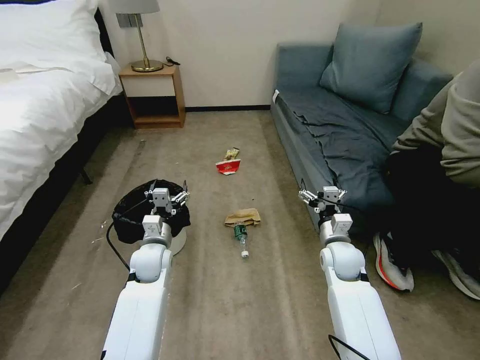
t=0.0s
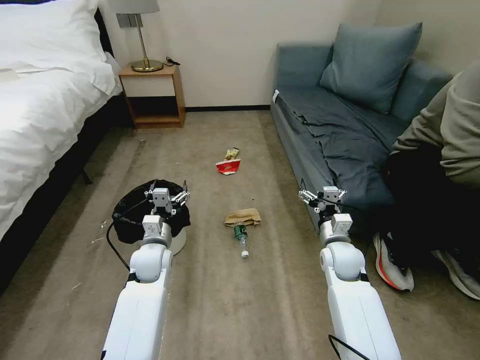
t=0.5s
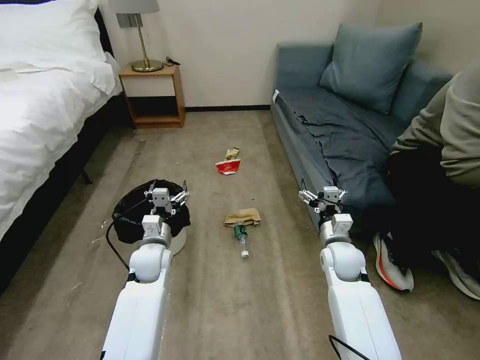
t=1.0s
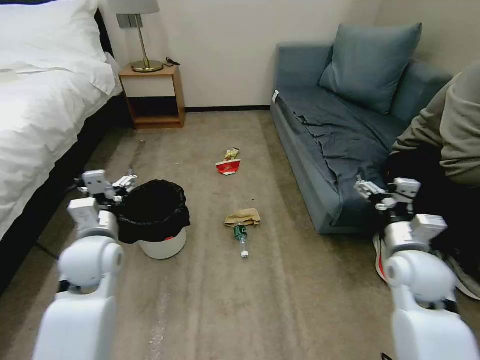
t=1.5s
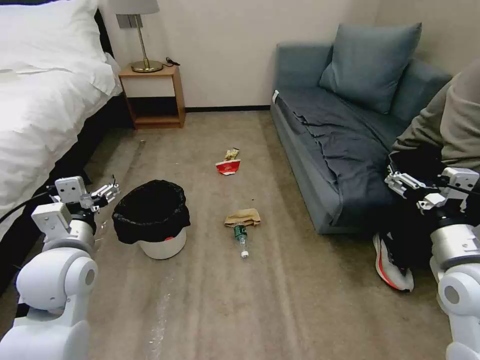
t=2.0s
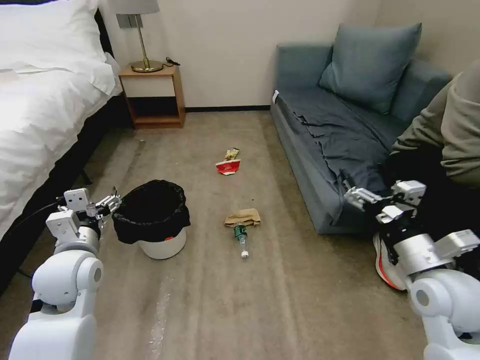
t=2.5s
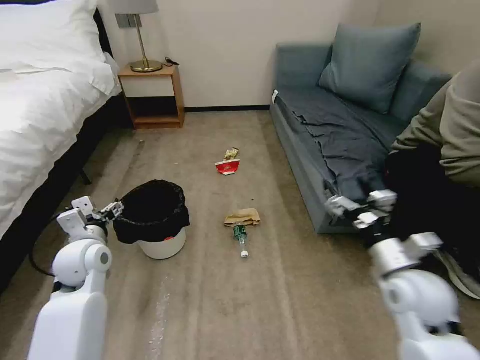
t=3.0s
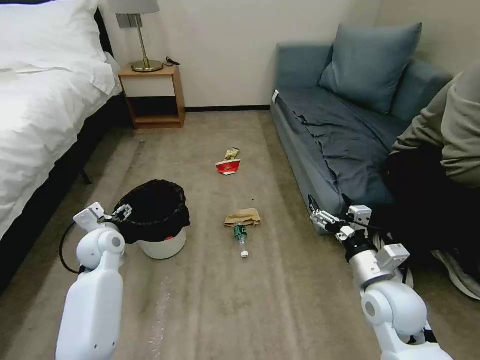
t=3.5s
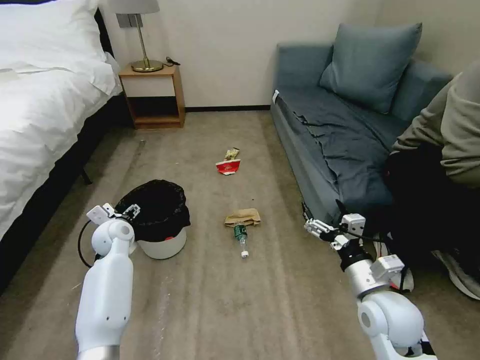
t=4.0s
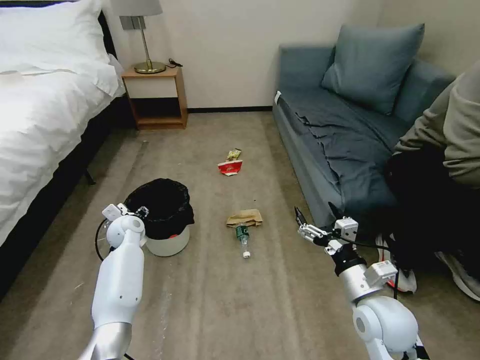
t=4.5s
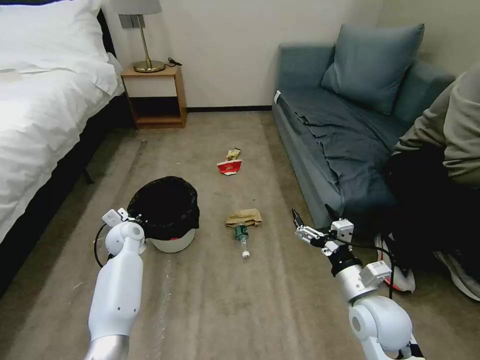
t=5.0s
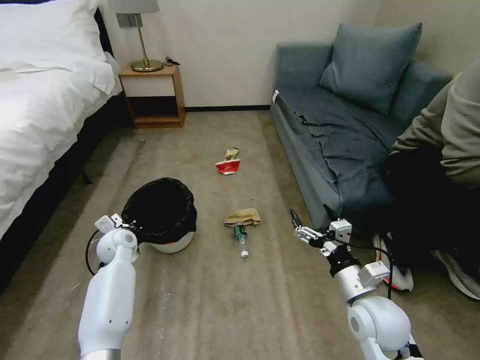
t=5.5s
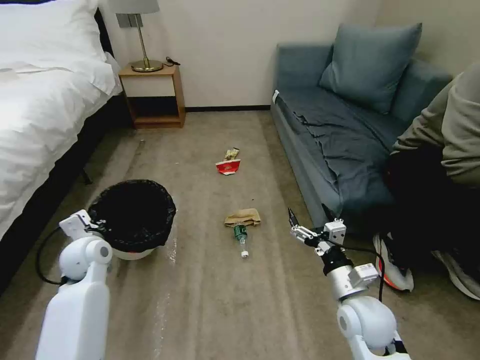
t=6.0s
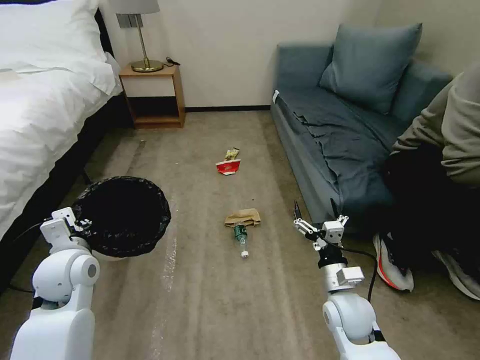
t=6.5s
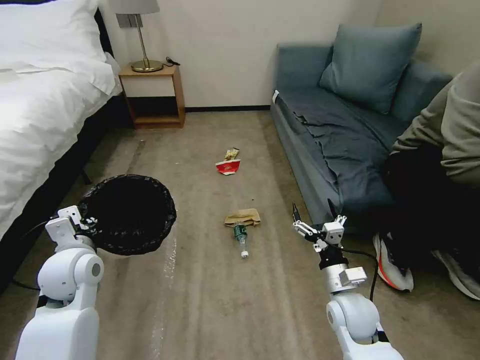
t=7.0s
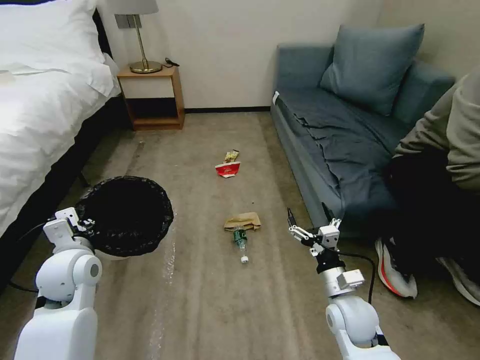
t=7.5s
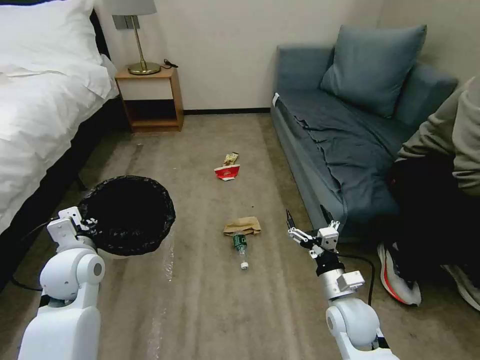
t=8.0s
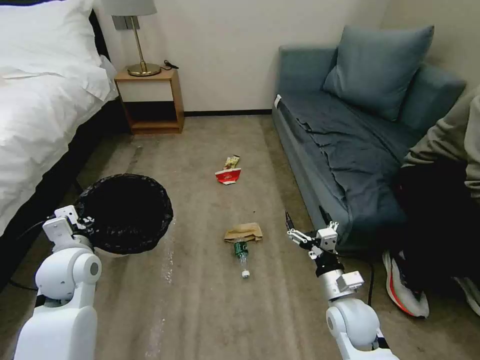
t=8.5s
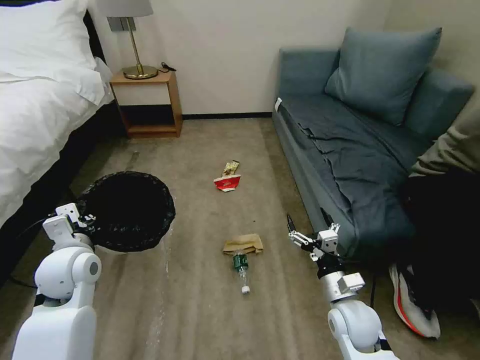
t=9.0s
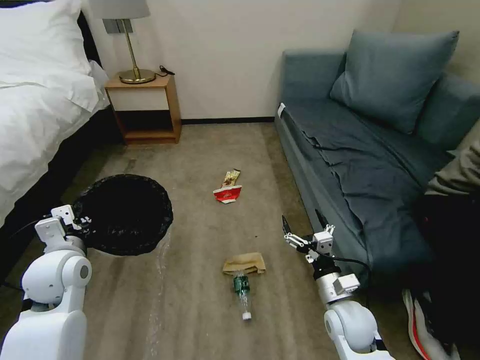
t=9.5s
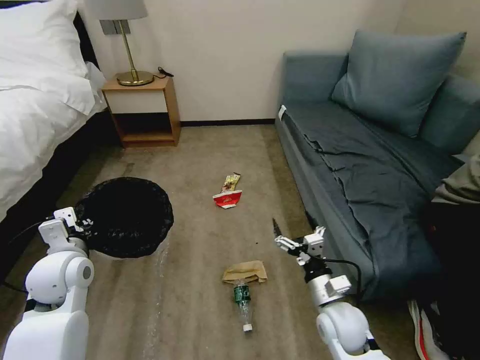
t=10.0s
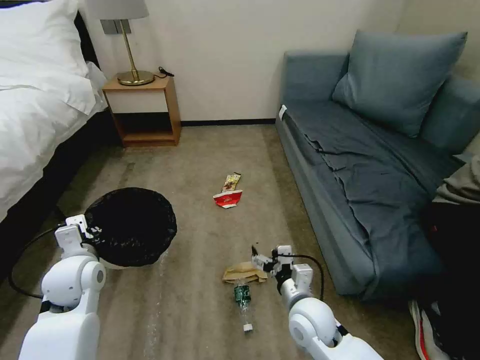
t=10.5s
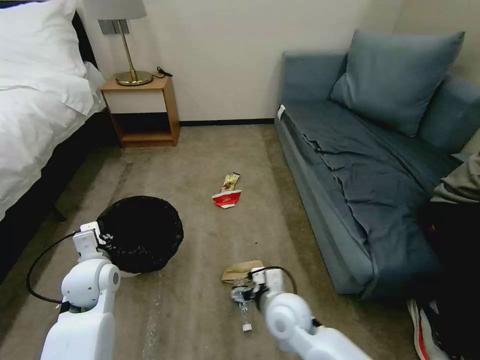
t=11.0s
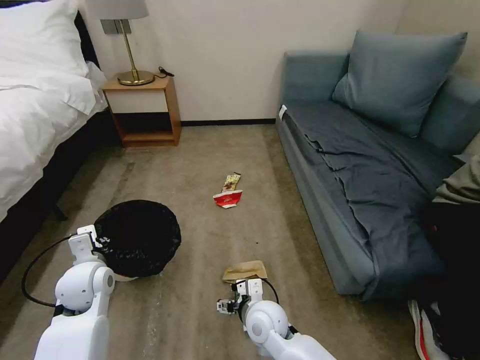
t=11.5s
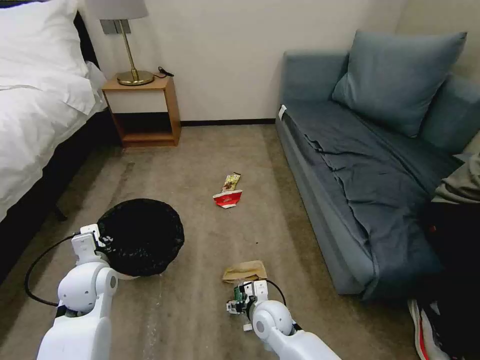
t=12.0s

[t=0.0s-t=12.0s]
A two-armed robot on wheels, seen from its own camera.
Task of the whole recording: Pick up the trash bin, then pick up the garbage on the floor and place it into the trash bin.
t=2.0s to t=4.0s: The left gripper heads forward and downward, covering roughly 20 cm; the right gripper moves downward and to the left, some 15 cm.
t=4.0s to t=6.0s: The right gripper moves about 5 cm. The left gripper goes some 5 cm backward, and closes.
t=6.0s to t=8.0s: The left gripper goes some 5 cm backward.
t=10.0s to t=12.0s: The left gripper moves downward, some 5 cm; the right gripper heads to the left and downward, covering roughly 15 cm.

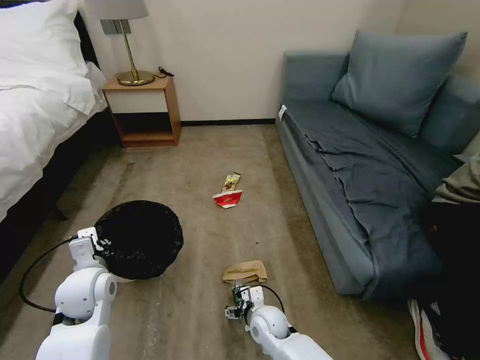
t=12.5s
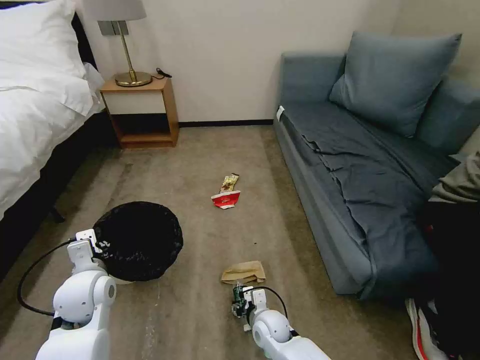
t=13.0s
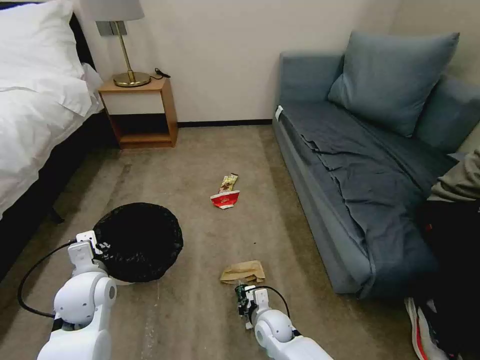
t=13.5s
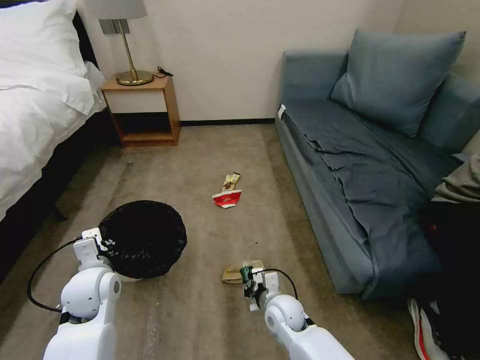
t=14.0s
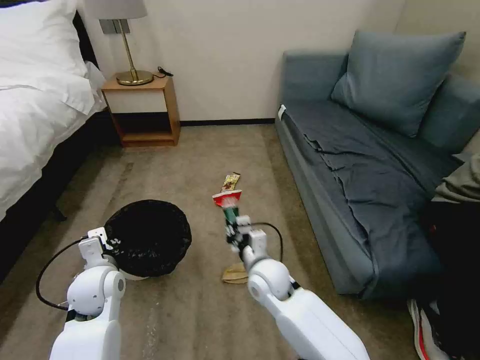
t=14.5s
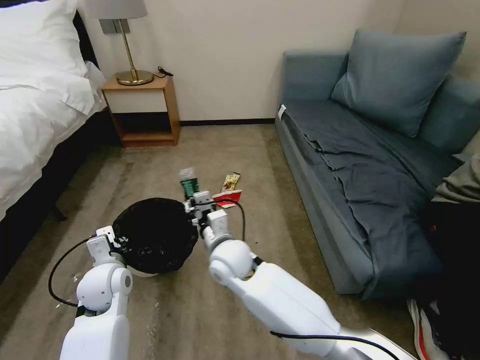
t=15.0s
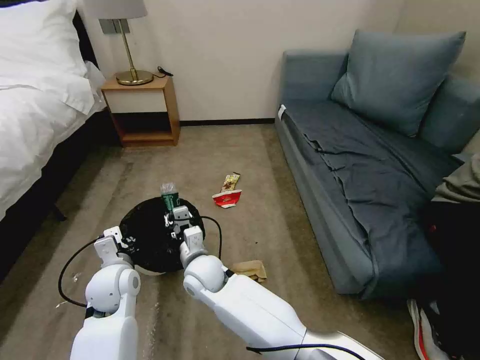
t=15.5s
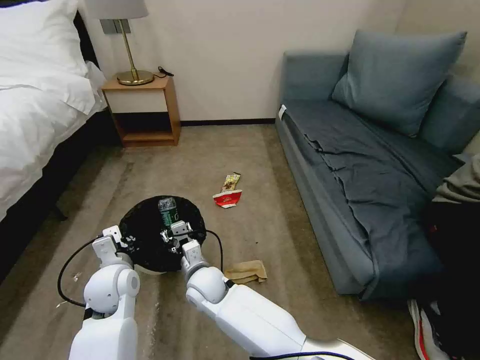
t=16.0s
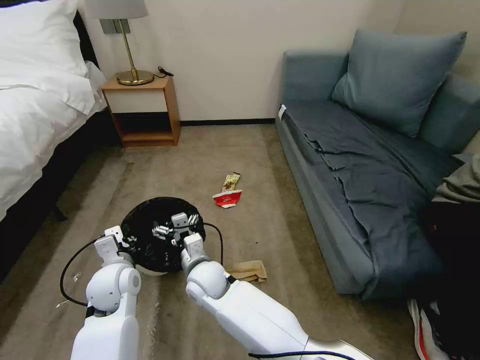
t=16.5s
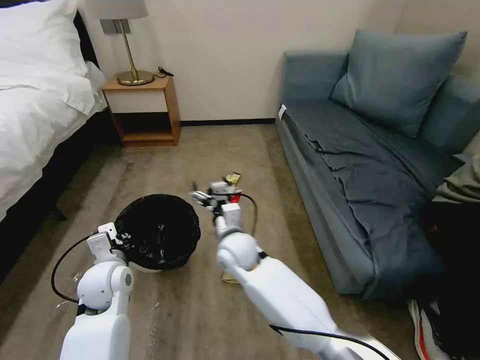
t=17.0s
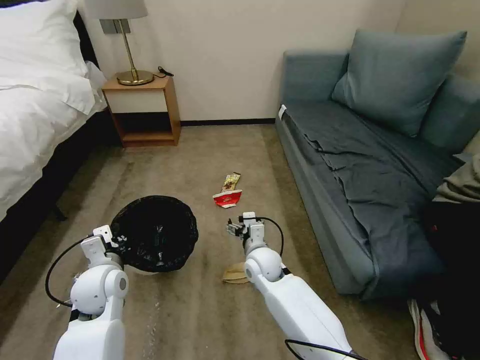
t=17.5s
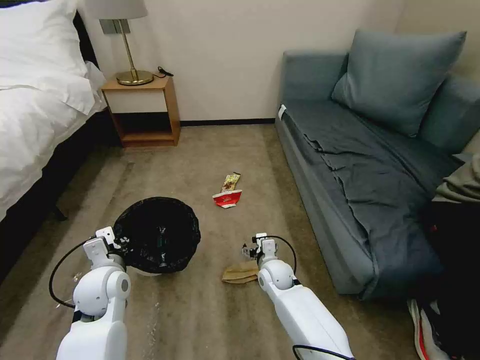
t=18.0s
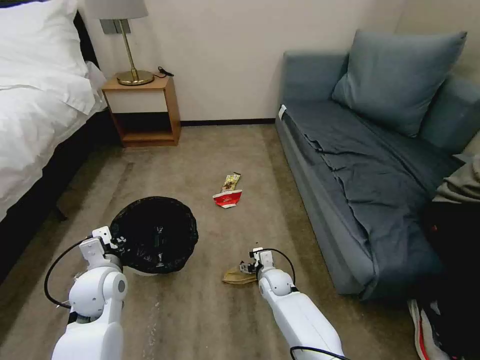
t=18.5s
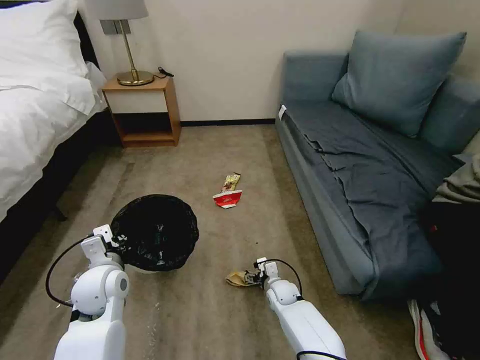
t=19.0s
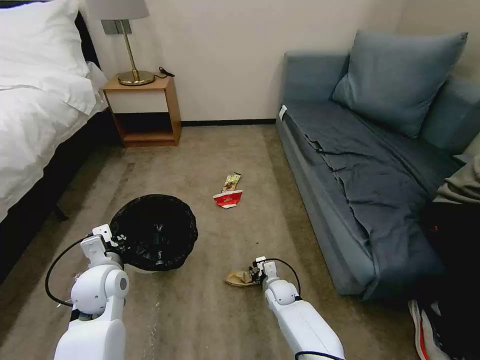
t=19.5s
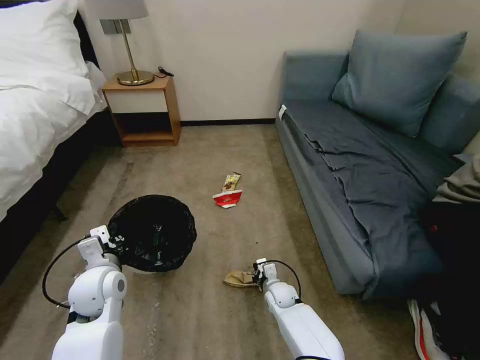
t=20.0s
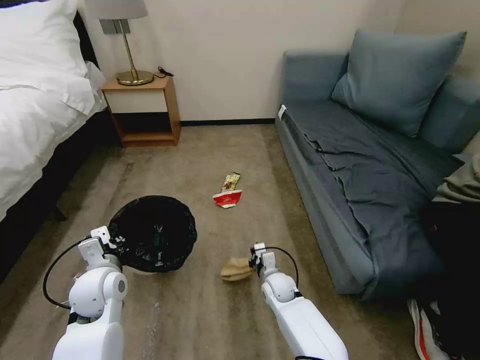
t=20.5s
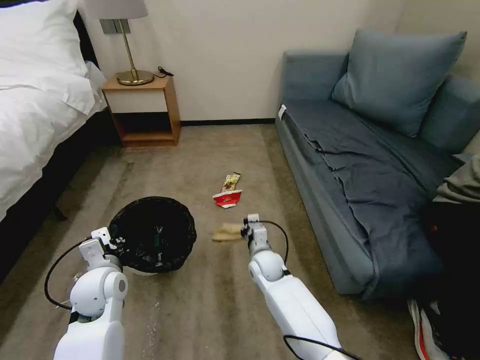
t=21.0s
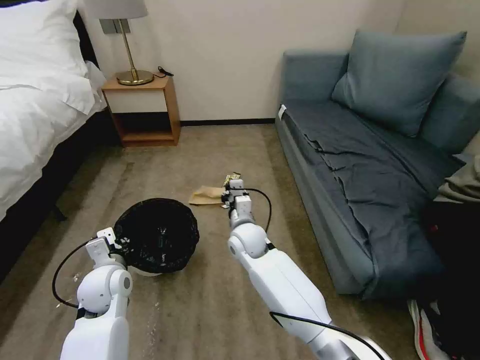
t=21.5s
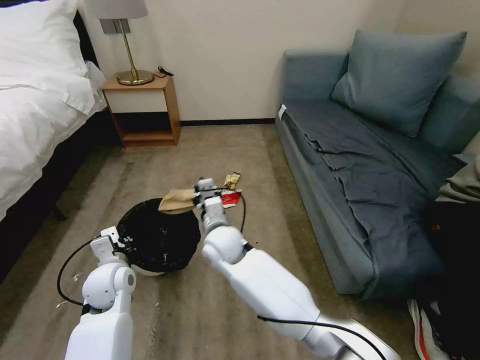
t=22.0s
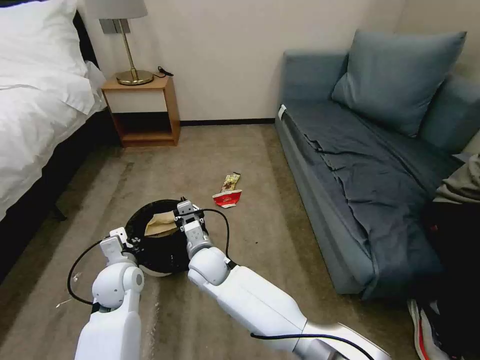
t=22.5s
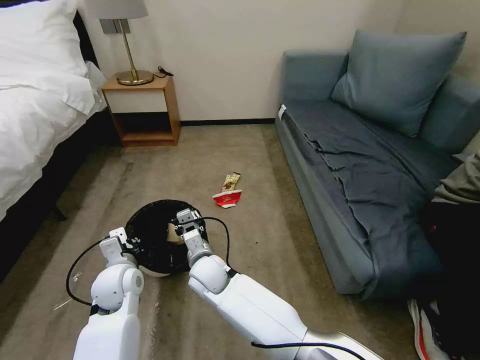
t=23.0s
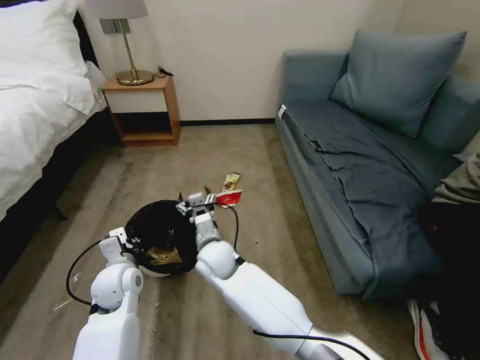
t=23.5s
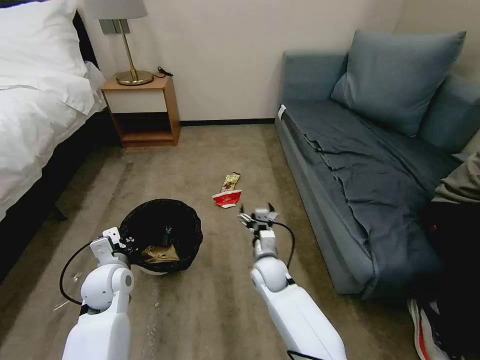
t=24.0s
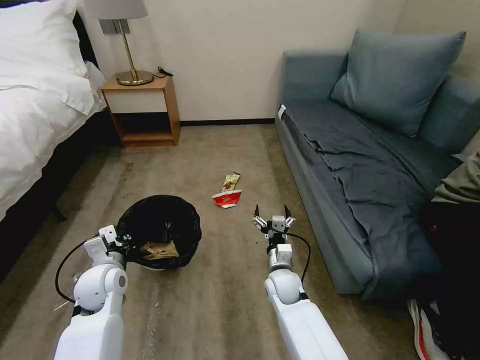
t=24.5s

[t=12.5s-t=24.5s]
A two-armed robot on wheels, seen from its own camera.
Task of the whole recording: Pick up the trash bin, then pick up the garbage on the floor and place it into the trash bin.
t=12.5s to t=14.5s: The right gripper goes roughly 15 cm upward, and closes.
t=14.5s to t=16.5s: The right gripper heads to the left, covering approximately 15 cm, and opens up.
t=16.5s to t=18.5s: The right gripper shifts about 25 cm to the right and downward.
t=18.5s to t=20.5s: The right gripper closes its fingers.
t=20.5s to t=22.5s: The right gripper moves to the left and upward, some 25 cm.
t=22.5s to t=24.5s: The right gripper travels to the right and downward by some 20 cm, and opens its fingers.

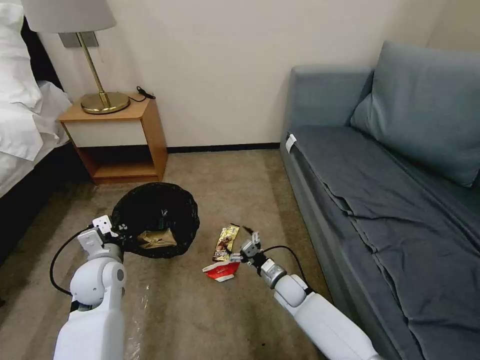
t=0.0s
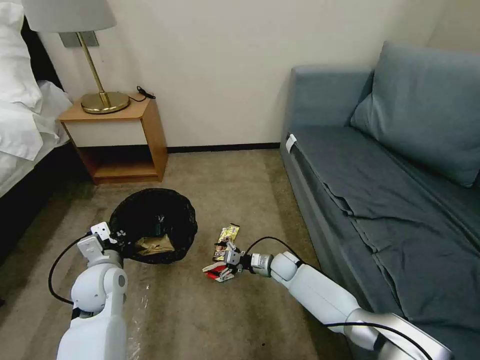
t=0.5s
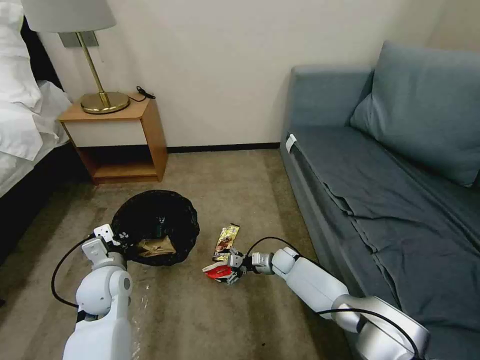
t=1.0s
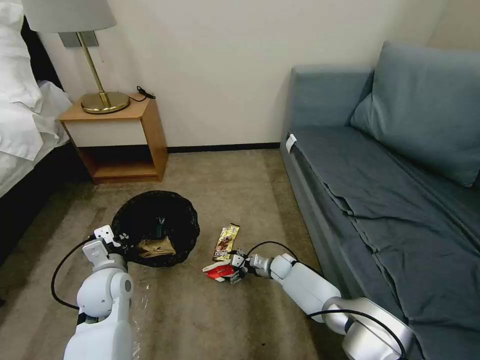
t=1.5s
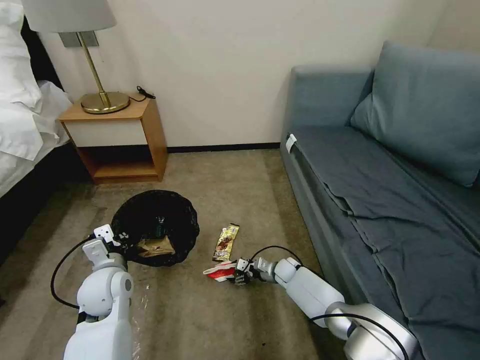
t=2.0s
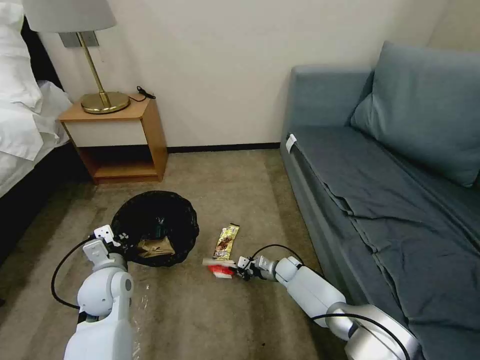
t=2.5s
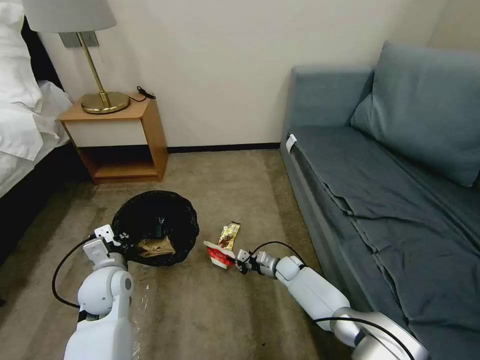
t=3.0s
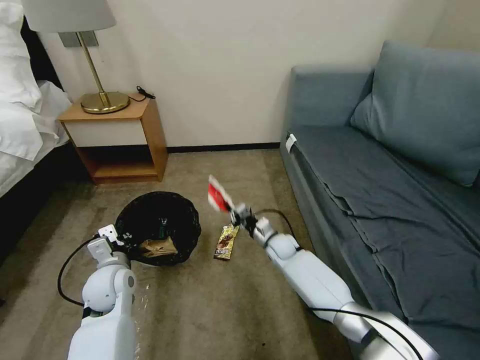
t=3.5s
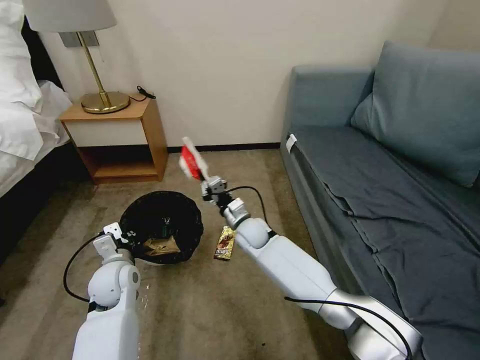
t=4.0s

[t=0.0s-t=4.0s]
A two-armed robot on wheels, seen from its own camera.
Task of the whole recording: Pick up the trash bin, then pick up the garbage on the floor and place it into the trash bin.
t=0.0s to t=2.0s: The right gripper shifts roughly 10 cm forward and downward.
t=2.0s to t=4.0s: The right gripper travels upward and to the left by about 25 cm, and closes up.
